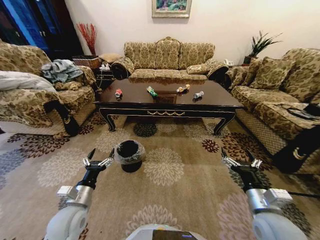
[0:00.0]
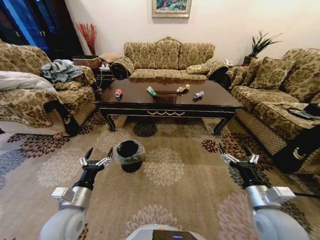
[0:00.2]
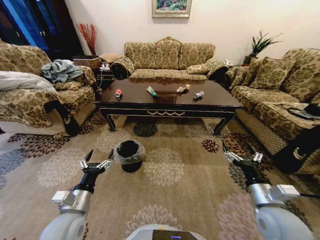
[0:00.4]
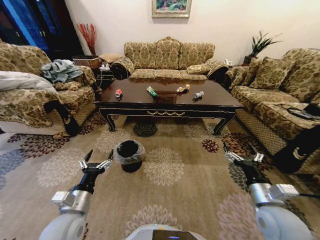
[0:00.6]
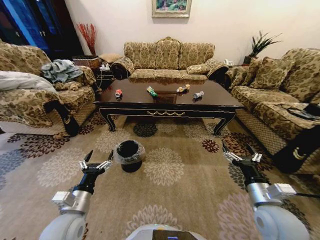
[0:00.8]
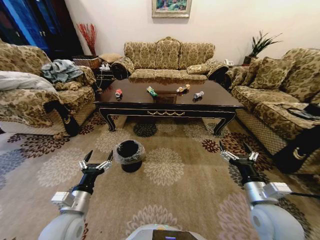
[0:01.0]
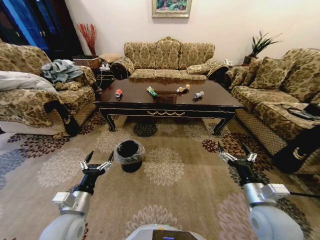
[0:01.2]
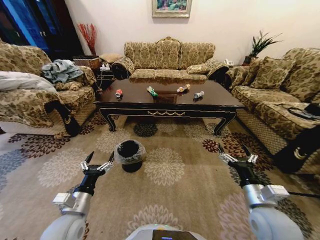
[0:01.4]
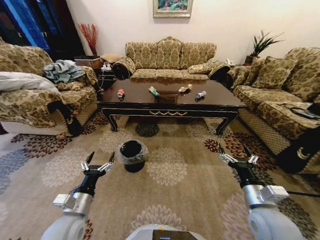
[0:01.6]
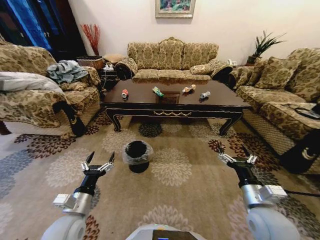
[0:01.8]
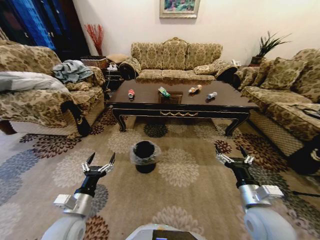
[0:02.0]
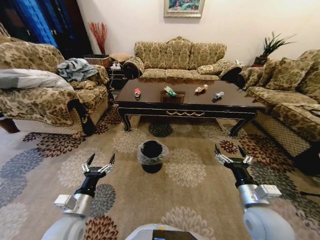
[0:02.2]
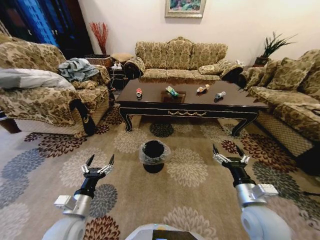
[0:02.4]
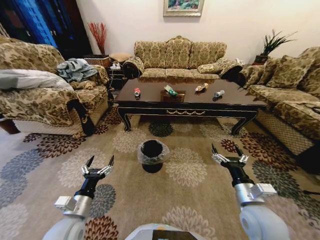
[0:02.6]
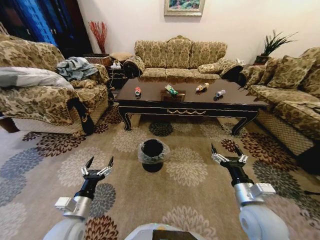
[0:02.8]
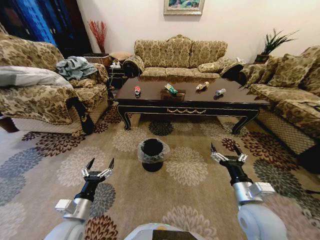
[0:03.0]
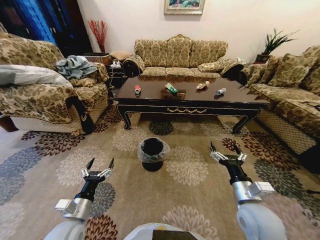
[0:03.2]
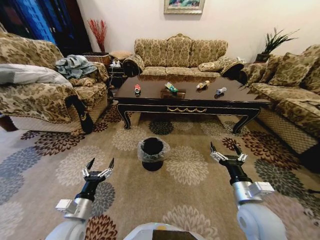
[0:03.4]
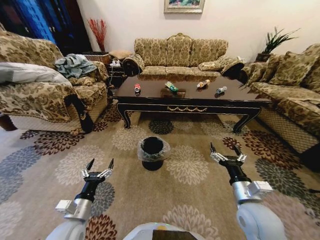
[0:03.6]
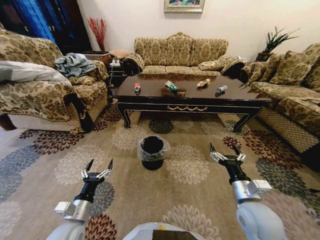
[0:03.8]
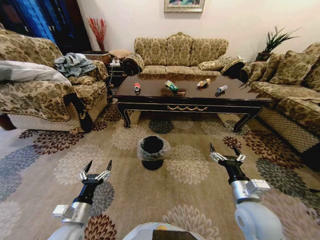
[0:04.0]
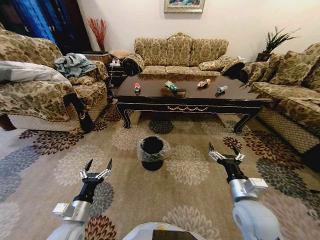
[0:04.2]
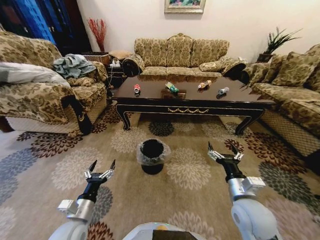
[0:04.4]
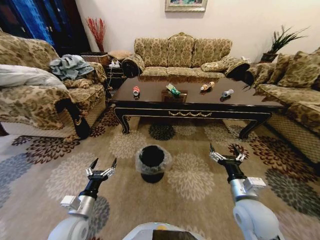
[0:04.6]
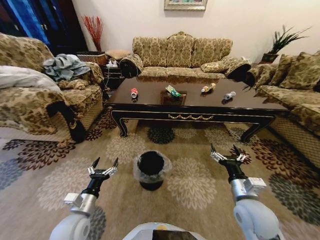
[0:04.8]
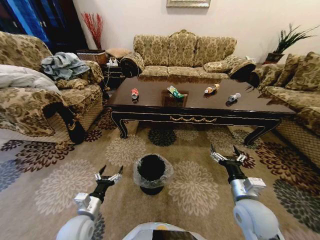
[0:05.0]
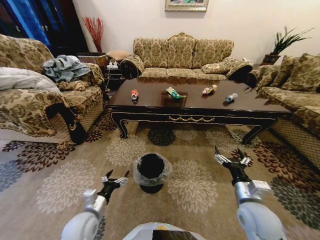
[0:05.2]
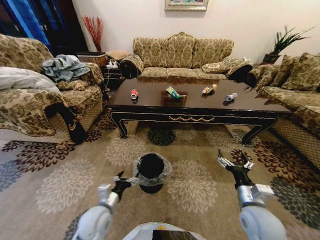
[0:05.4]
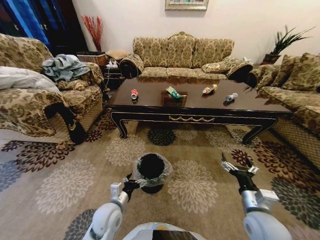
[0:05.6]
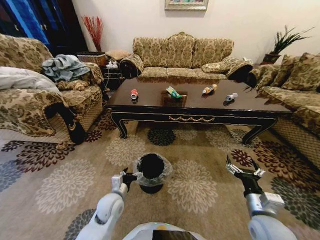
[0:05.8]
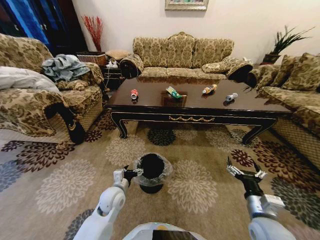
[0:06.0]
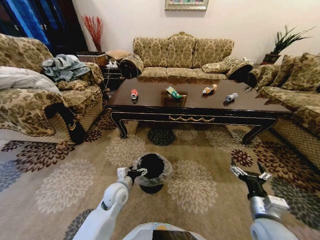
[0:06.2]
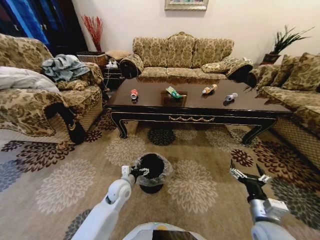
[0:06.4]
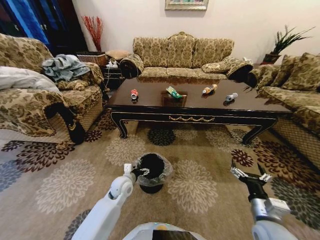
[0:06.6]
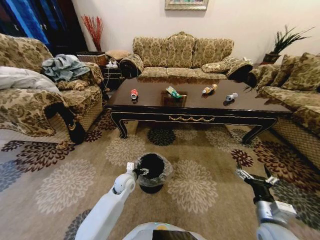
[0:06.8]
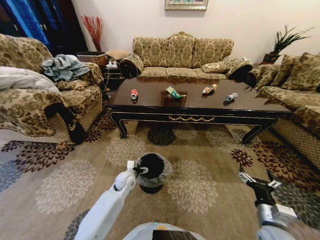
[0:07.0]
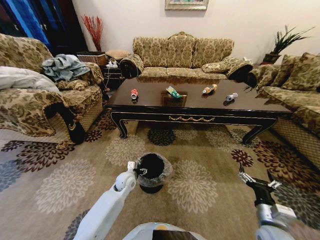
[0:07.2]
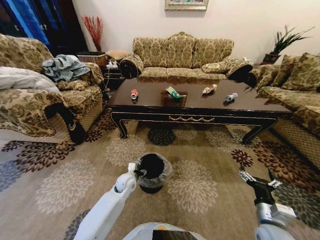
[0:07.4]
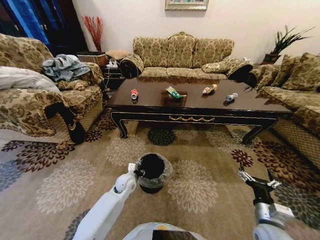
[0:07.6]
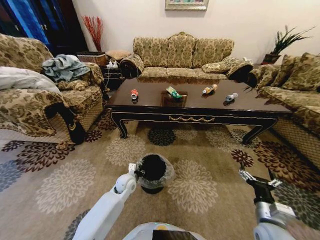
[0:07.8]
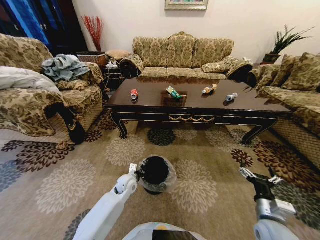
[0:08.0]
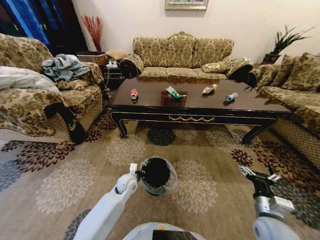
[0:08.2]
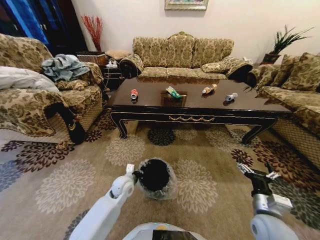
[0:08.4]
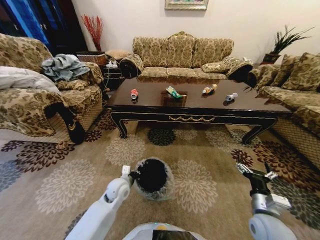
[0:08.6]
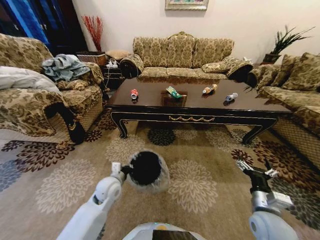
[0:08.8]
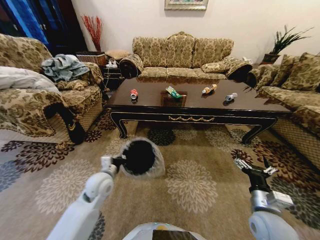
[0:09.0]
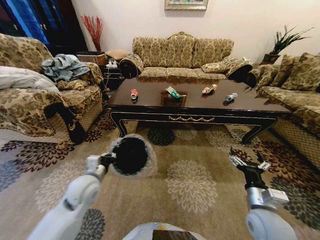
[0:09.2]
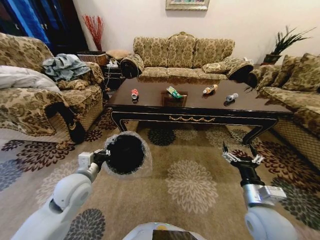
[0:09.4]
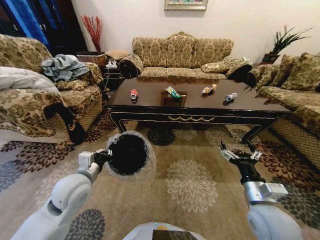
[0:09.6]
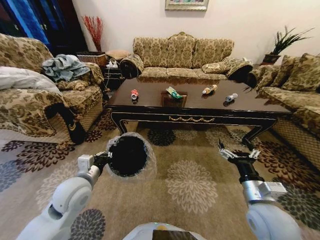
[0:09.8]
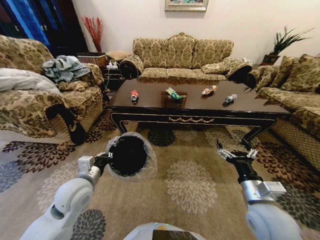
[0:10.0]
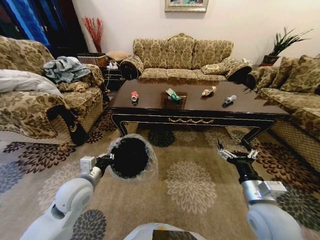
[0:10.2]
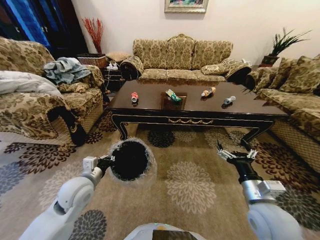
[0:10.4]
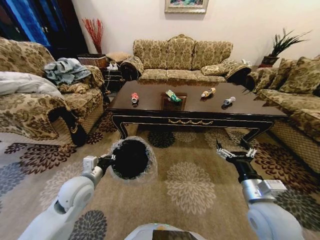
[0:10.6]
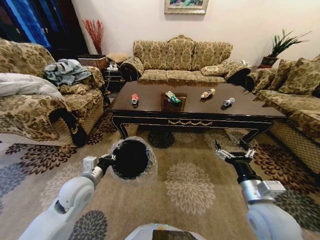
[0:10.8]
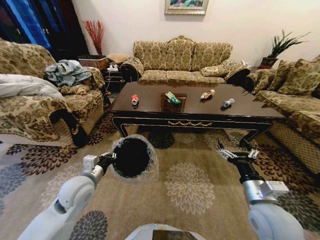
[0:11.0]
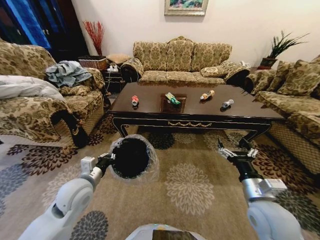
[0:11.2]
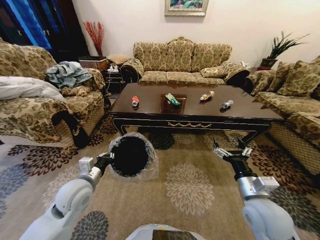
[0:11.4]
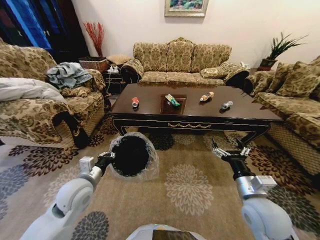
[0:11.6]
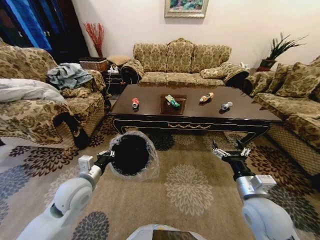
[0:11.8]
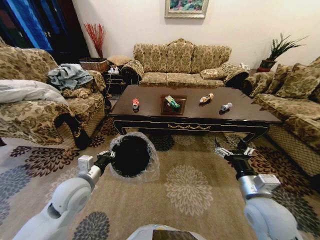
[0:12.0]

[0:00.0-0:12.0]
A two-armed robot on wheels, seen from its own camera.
Task of the whole recording: Move to the front of the table and place the trash on the table into the trash bin.
0:04.4 to 0:06.0: The left gripper is displaced forward and to the right by approximately 15 cm, while the right gripper is displaced to the right by about 5 cm.
0:06.0 to 0:07.6: The left gripper moves forward and downward, roughly 10 cm, and closes its fingers.
0:07.6 to 0:09.0: The left gripper heads upward, to the left and backward, covering about 15 cm, and closes up. The right gripper shifts by roughly 5 cm.
0:09.0 to 0:10.4: The left gripper moves about 5 cm. The right gripper travels upward by about 5 cm.

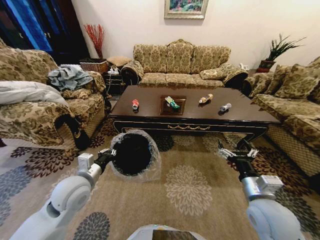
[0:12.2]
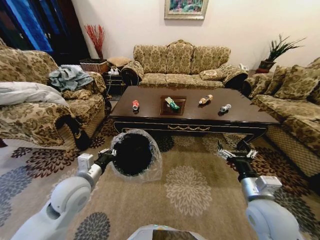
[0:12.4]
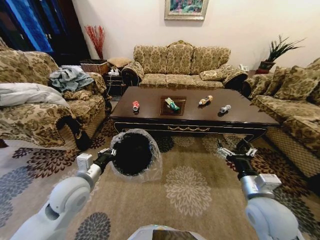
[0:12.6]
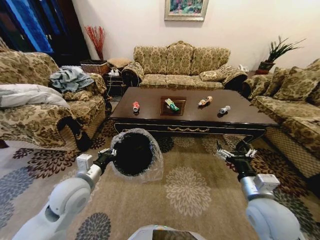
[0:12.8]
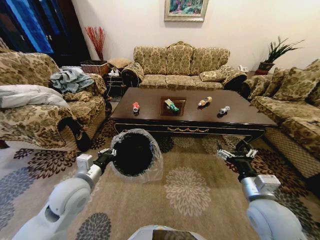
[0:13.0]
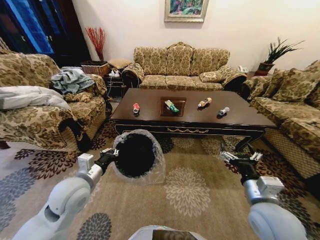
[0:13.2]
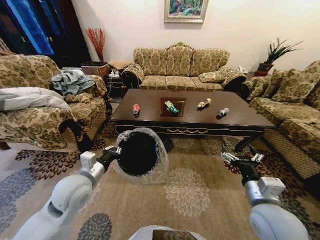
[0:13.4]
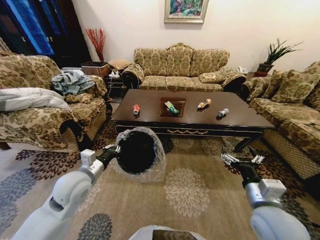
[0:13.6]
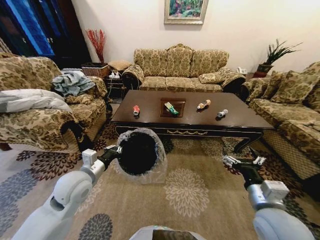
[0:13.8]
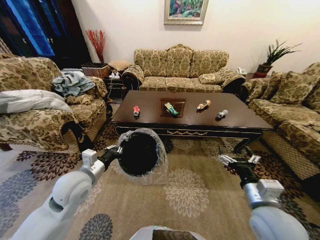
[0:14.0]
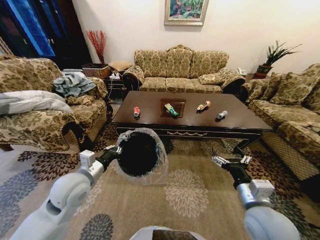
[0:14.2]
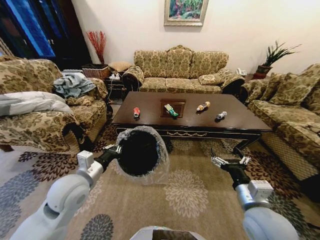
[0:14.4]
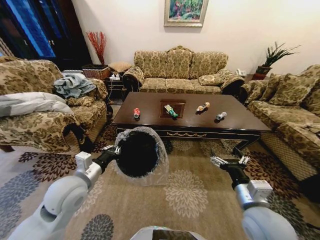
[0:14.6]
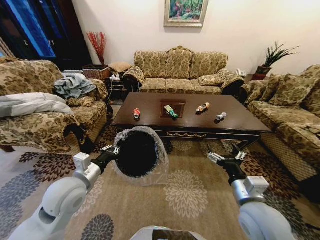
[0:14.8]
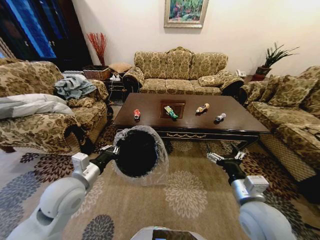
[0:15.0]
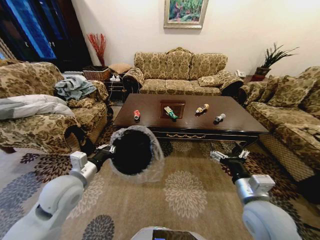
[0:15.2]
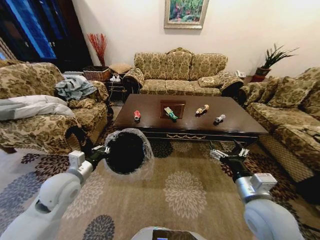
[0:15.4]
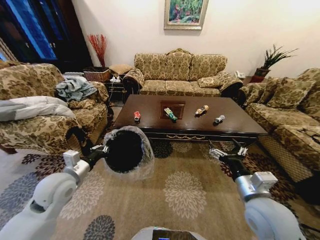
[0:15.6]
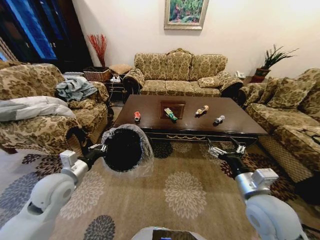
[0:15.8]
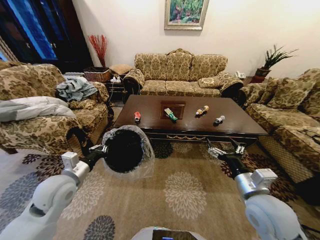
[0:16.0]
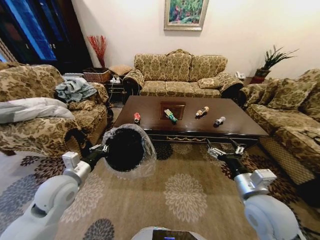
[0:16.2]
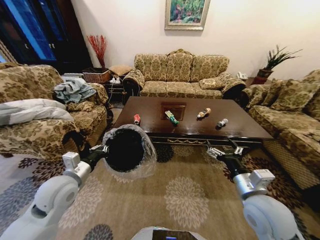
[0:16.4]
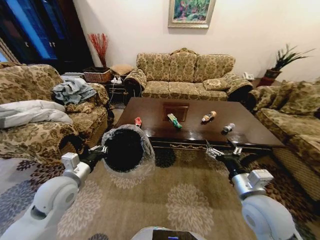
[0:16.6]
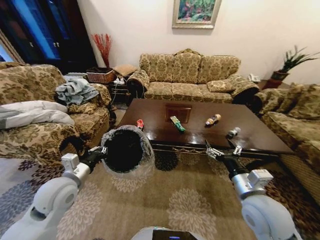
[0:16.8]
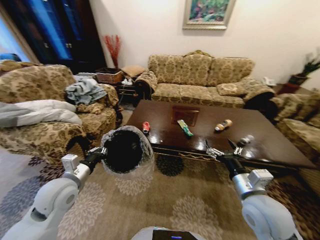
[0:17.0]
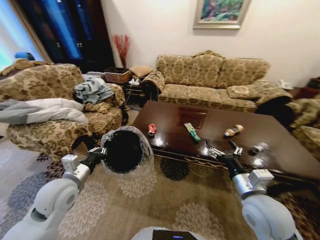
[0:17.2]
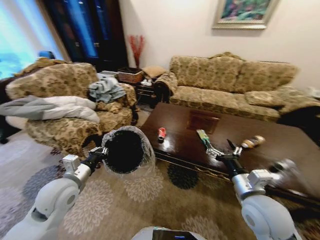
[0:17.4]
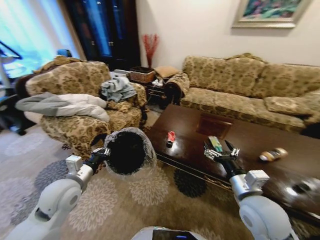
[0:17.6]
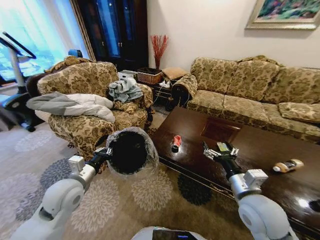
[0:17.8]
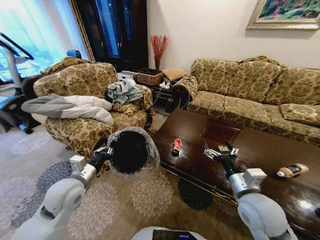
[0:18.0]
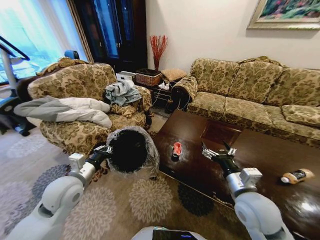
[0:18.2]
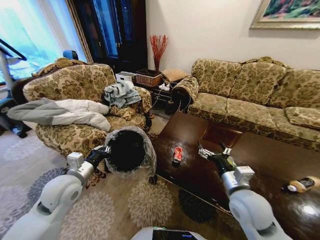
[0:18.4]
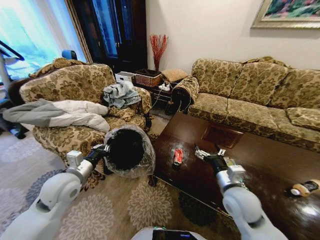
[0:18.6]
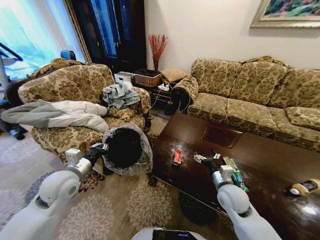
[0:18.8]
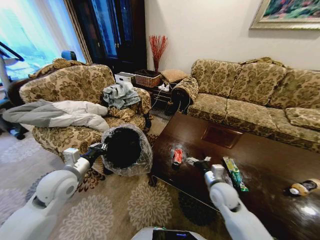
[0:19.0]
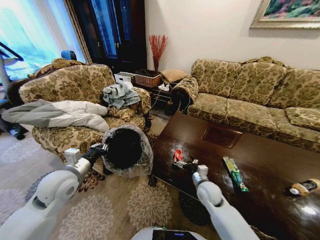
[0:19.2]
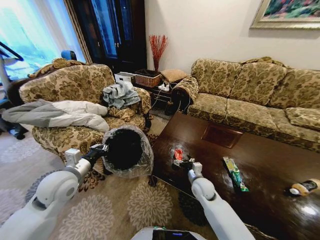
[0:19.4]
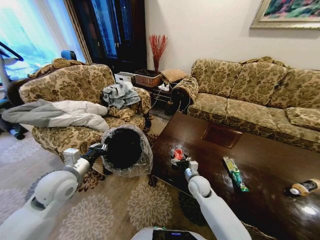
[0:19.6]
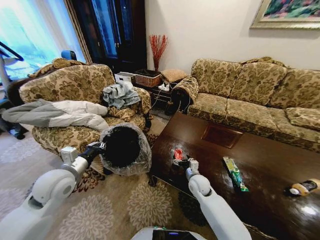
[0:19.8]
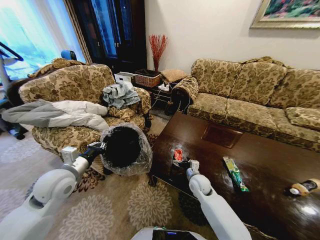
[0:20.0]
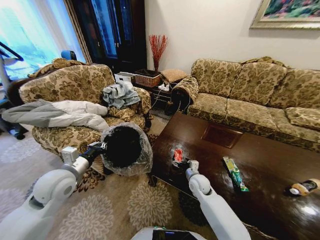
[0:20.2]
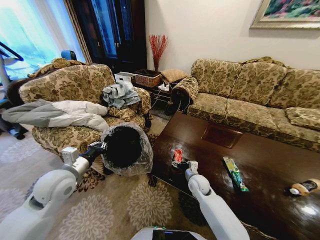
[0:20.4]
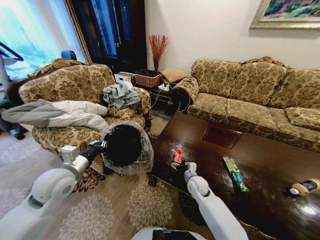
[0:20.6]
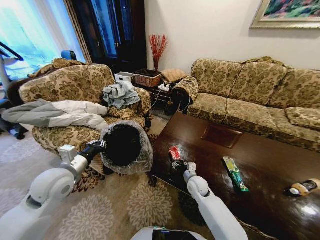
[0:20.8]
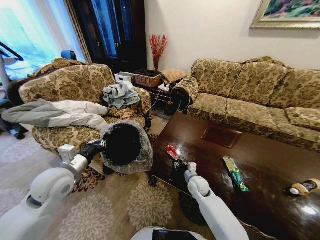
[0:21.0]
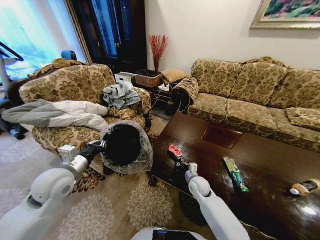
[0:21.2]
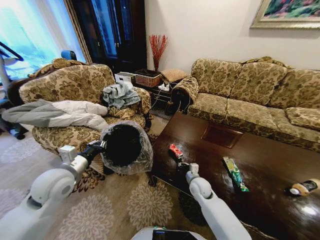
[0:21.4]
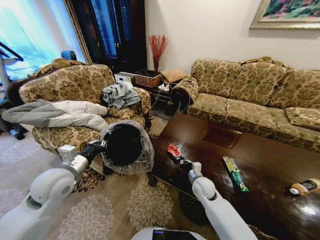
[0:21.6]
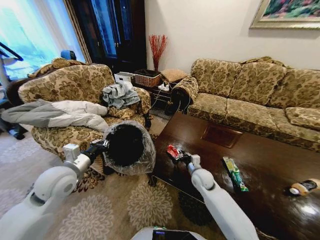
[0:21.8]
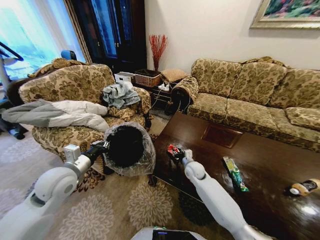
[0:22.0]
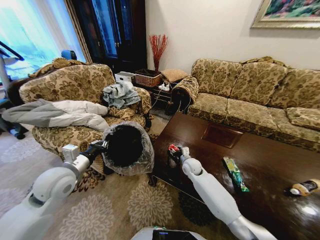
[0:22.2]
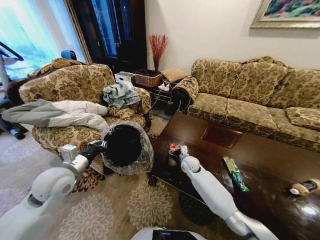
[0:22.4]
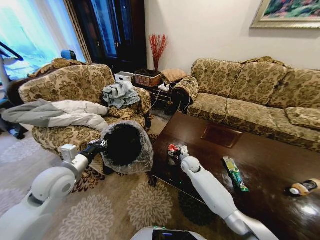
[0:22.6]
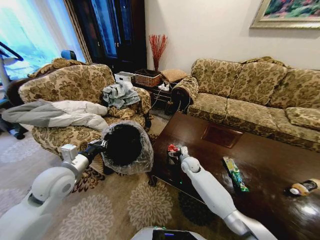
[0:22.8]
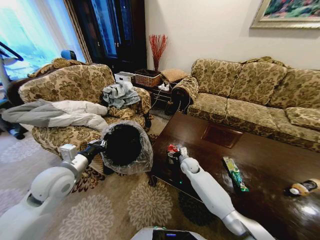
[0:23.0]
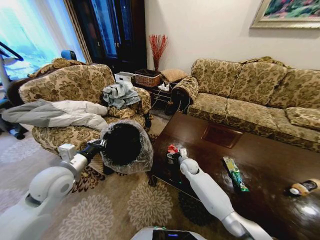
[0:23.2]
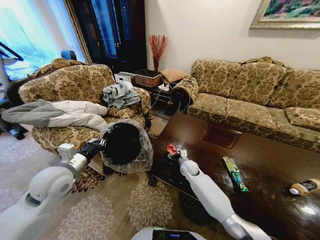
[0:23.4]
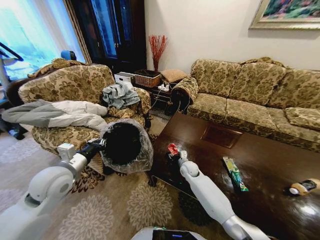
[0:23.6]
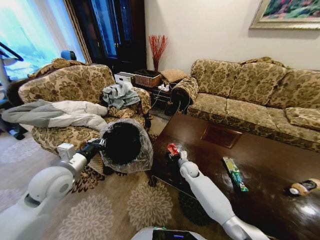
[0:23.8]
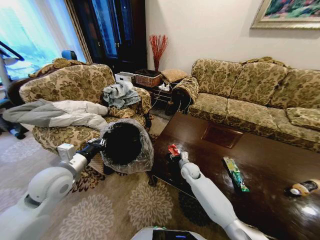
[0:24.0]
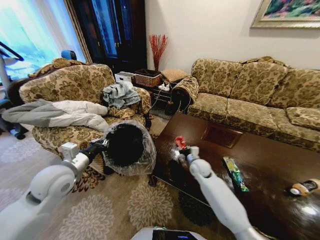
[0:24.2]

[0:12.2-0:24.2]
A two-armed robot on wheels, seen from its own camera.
Task of the whole recording: Move to the front of the table and place the trash on the table into the trash bin.
0:18.2 to 0:19.8: The right gripper goes about 25 cm downward, forward and to the left.
0:19.8 to 0:21.2: The right gripper closes its fingers.
0:21.2 to 0:22.6: The right gripper heads forward, covering roughly 10 cm, and opens.
0:22.6 to 0:24.2: The right gripper closes up.
